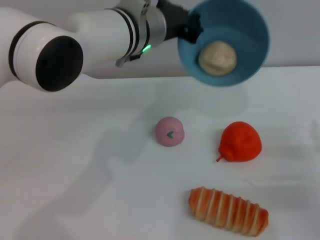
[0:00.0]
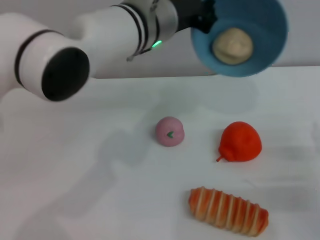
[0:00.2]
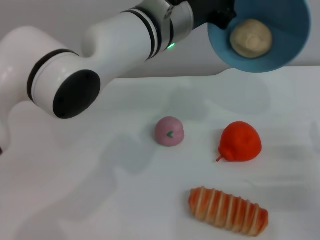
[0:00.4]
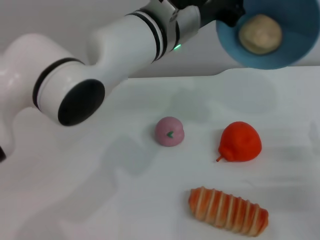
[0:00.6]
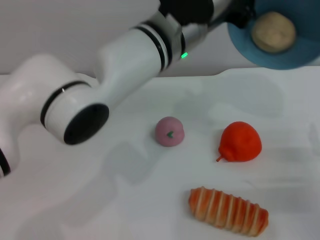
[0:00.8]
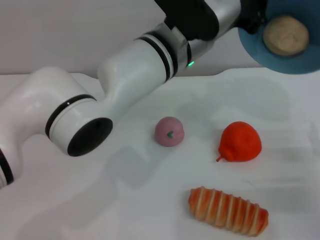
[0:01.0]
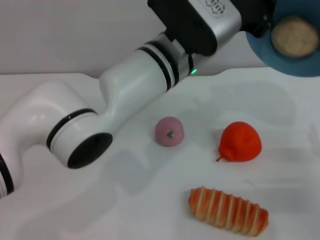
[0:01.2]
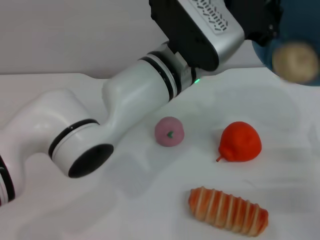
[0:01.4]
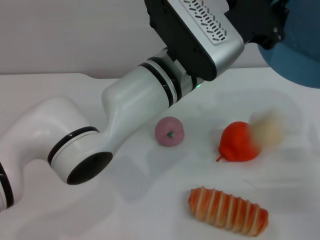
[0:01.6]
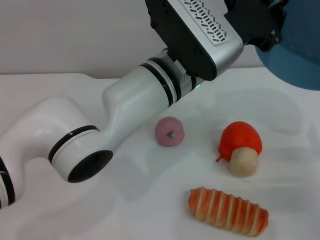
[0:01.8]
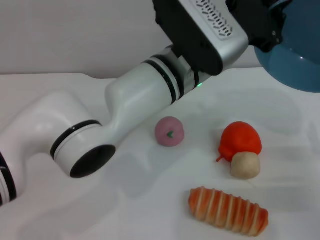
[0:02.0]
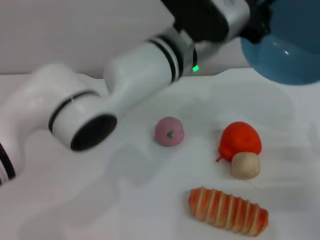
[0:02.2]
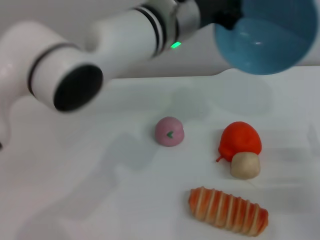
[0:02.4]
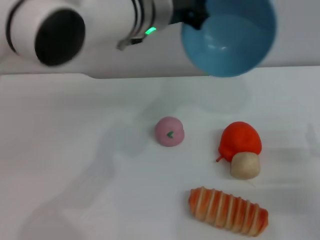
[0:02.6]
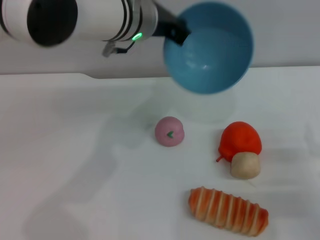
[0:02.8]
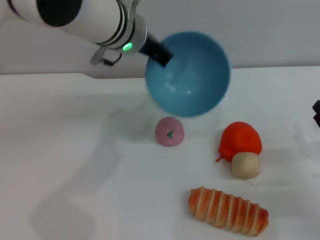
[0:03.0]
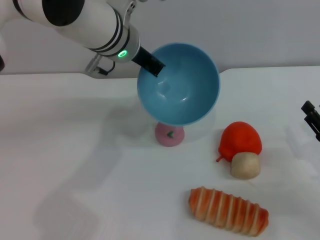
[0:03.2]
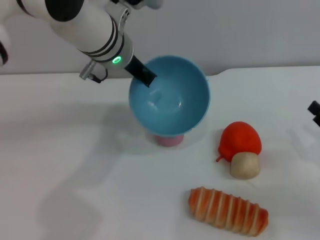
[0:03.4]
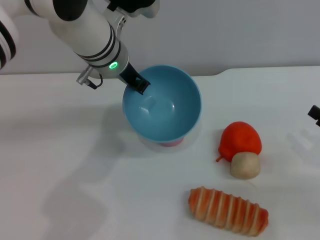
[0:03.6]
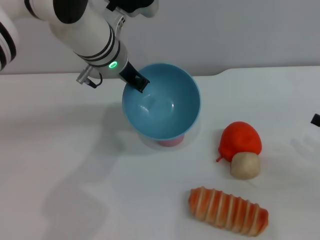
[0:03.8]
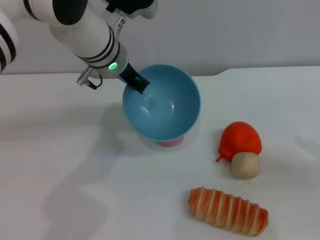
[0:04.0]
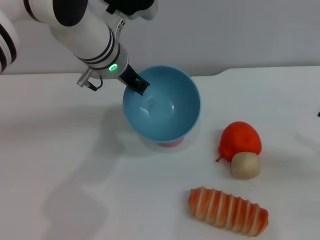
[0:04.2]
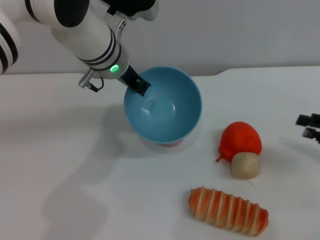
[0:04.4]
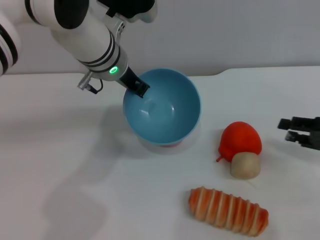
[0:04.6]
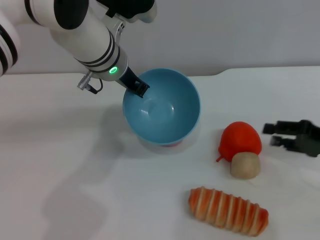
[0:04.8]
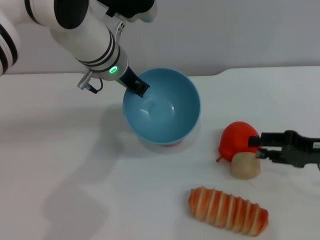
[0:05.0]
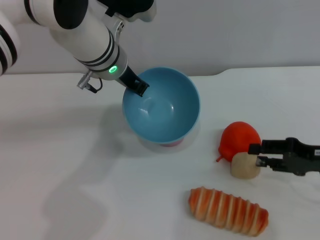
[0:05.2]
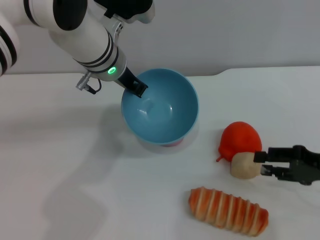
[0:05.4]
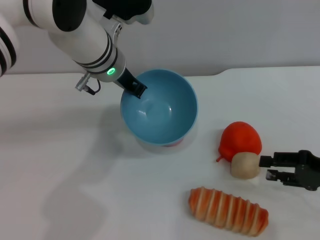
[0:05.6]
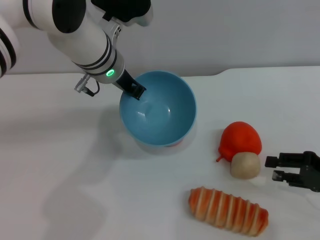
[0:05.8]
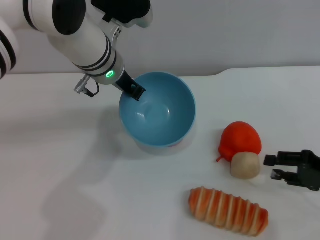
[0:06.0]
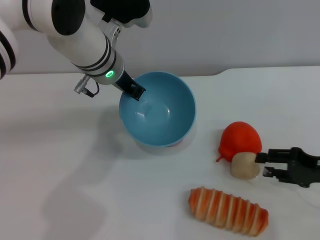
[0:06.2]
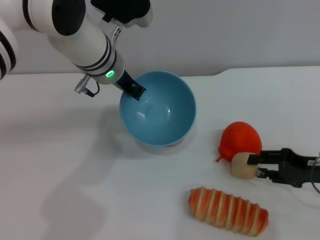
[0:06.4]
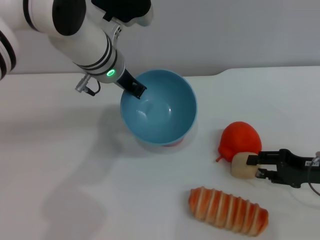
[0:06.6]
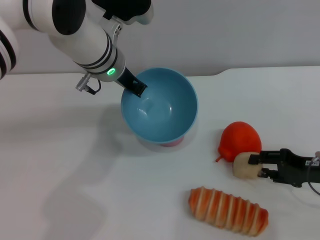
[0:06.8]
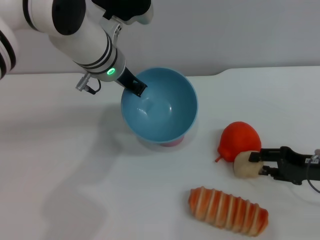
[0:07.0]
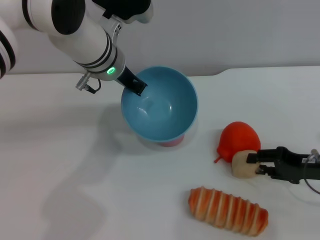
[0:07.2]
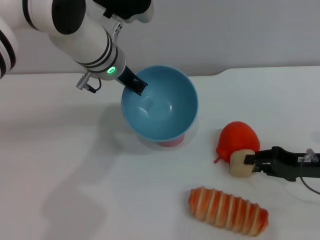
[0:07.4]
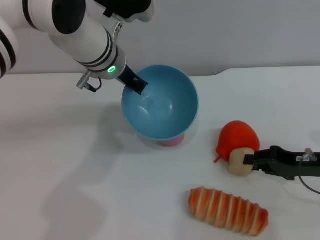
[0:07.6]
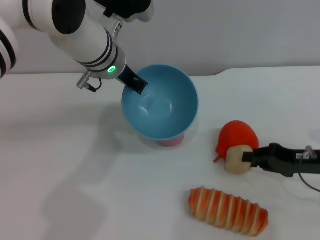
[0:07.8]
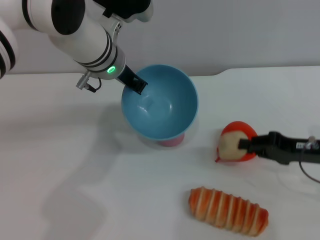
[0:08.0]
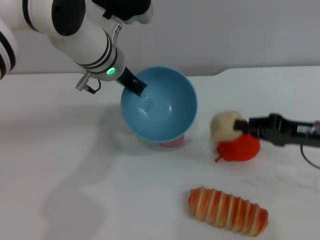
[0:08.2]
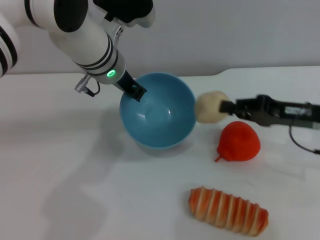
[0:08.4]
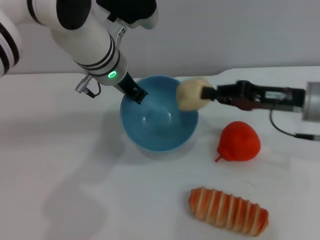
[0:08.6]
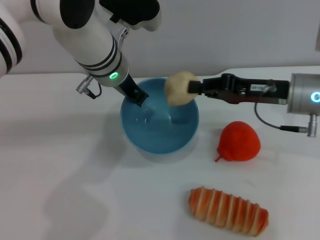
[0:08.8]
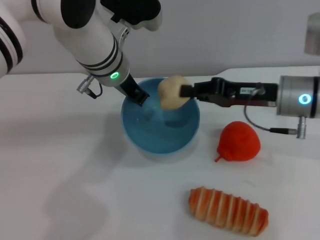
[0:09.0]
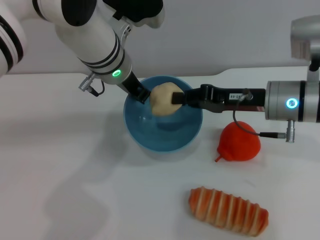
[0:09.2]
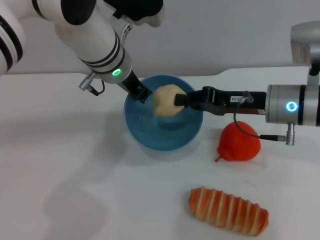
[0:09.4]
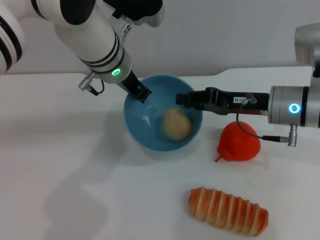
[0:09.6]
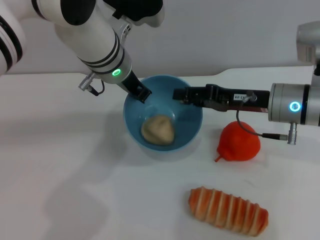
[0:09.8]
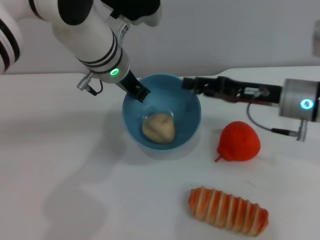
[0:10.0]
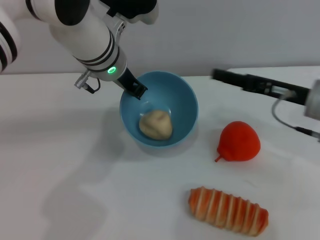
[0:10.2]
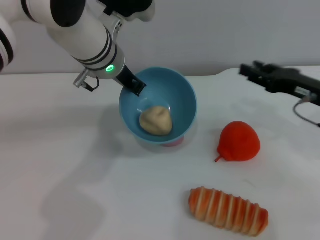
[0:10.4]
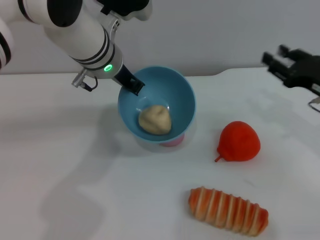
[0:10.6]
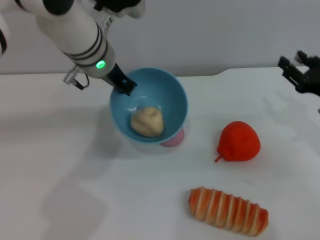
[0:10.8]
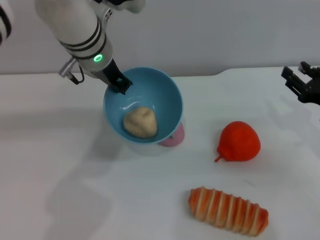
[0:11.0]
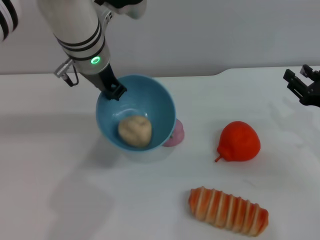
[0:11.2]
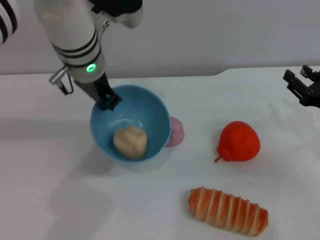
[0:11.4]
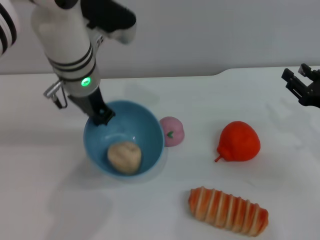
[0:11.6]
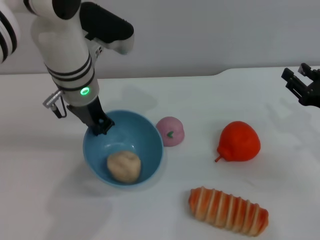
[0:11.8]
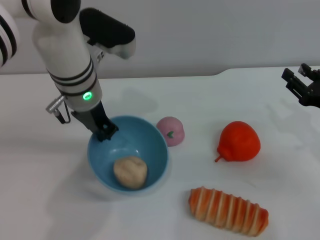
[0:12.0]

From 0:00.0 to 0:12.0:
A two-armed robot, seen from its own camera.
Task of the whole recording: put the egg yolk pastry into the blue bowl and pour it out repeatedly.
Step, from 0:01.8 to 0:08.0: Pick up the egg yolk pastry with the right gripper.
Step, from 0:08.4 to 0:10.6: Place the egg yolk pastry into the bowl.
From 0:00.0 to 0:01.6: The left gripper is displaced backward and to the right by approximately 10 cm.
From 0:01.6 to 0:03.0: The left gripper goes about 10 cm forward and to the left.
From 0:03.0 to 0:04.4: The right gripper heads upward, covering about 10 cm.
From 0:06.0 to 0:07.6: The right gripper moves approximately 5 cm.
From 0:07.6 to 0:09.0: The right gripper is displaced to the left, upward and forward by some 15 cm.
From 0:09.0 to 0:10.4: The right gripper heads to the right, covering some 10 cm, and opens its fingers.
From 0:10.4 to 0:12.0: The right gripper moves roughly 5 cm.

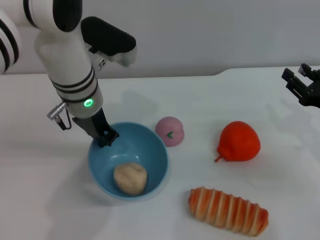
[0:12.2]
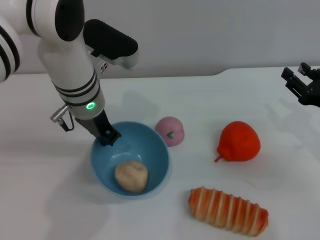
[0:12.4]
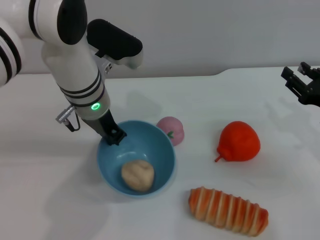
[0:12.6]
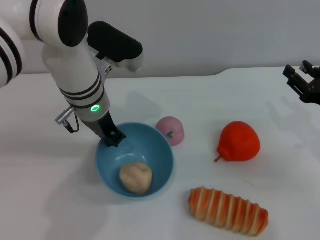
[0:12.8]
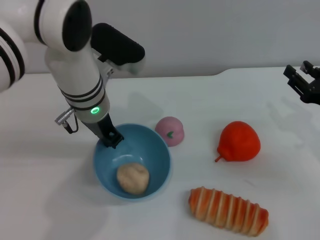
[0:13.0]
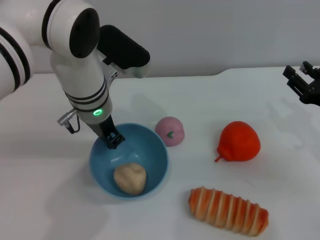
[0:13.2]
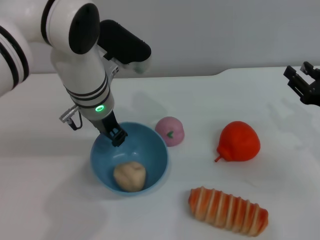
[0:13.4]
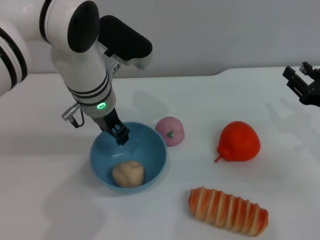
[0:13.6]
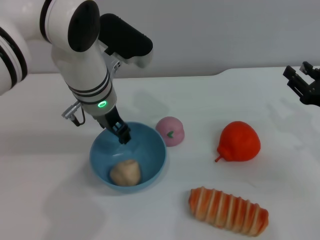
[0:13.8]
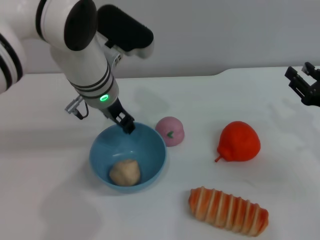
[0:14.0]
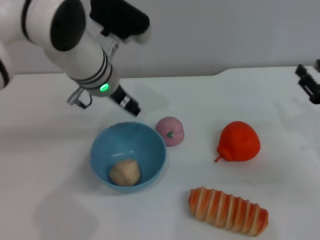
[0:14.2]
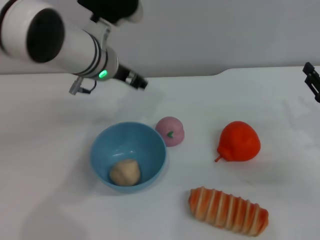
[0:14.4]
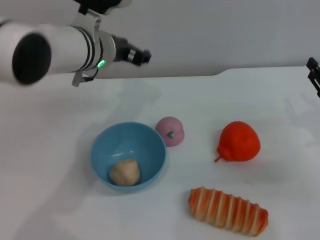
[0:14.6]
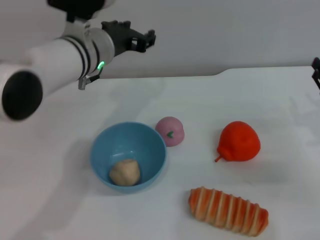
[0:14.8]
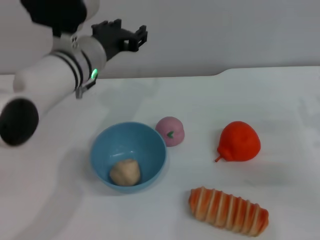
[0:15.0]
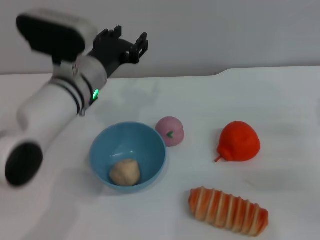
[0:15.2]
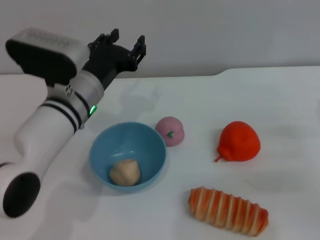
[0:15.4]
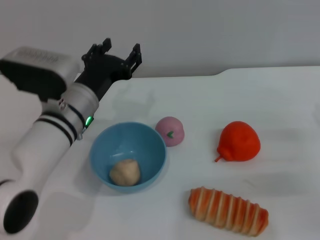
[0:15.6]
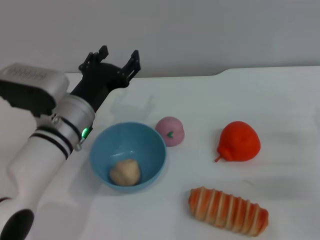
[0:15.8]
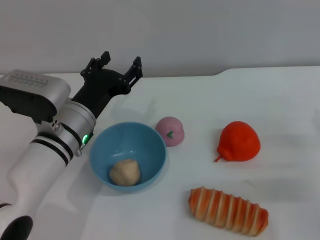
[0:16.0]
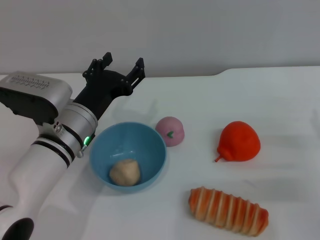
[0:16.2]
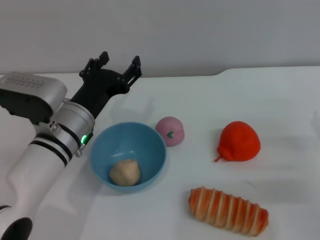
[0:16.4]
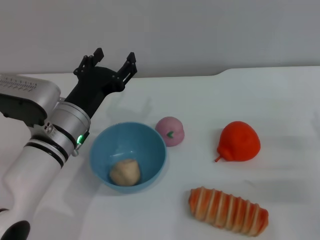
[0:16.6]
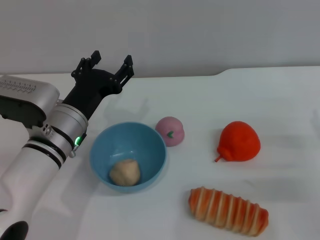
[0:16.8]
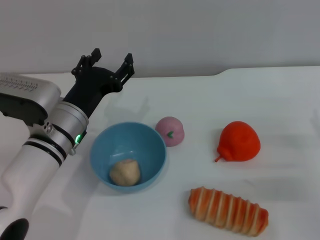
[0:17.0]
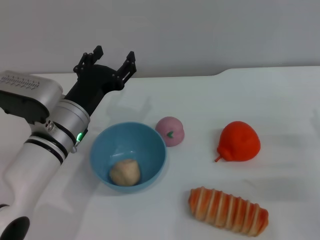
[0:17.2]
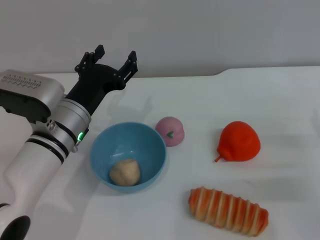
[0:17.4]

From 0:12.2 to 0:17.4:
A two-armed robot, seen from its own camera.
Task of the whole recording: put the egg yolk pastry into the blue bowl and pour it out repeatedly.
Step, from 0:12.2 to 0:14.2: Place the bowl on the table.
From 0:12.2 to 0:14.0: The left gripper opens its fingers.
From 0:14.0 to 0:15.6: The left gripper shifts roughly 10 cm downward and backward.
From 0:15.6 to 0:17.4: There are only small adjustments of the grippers.

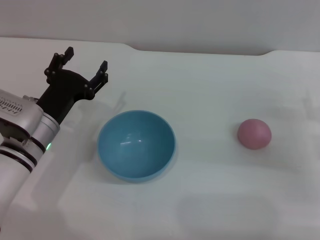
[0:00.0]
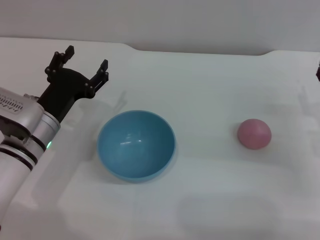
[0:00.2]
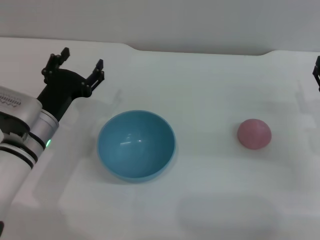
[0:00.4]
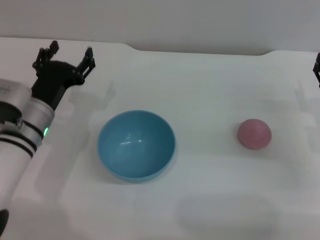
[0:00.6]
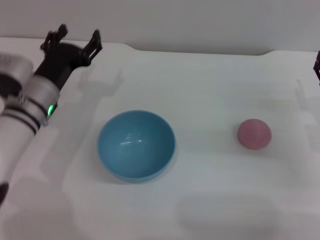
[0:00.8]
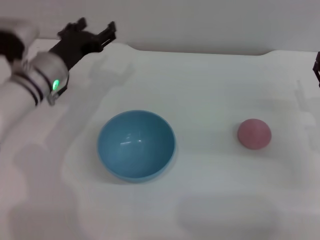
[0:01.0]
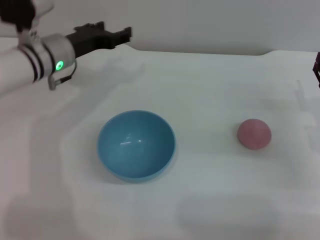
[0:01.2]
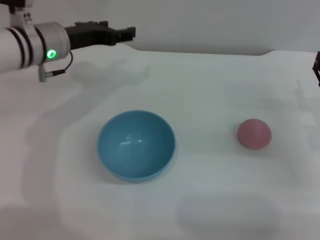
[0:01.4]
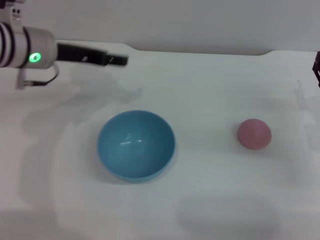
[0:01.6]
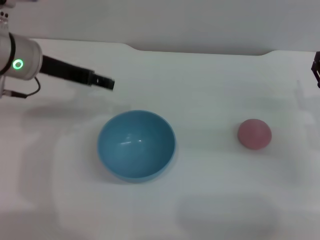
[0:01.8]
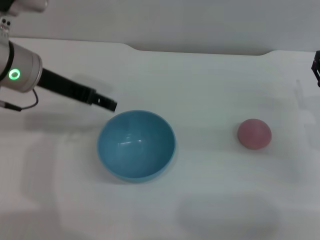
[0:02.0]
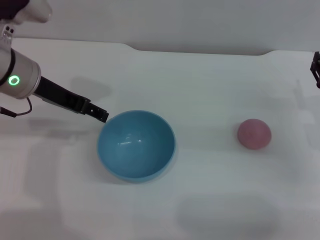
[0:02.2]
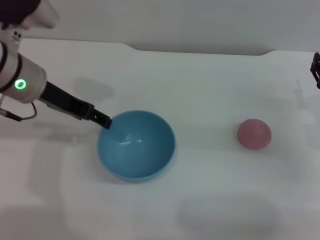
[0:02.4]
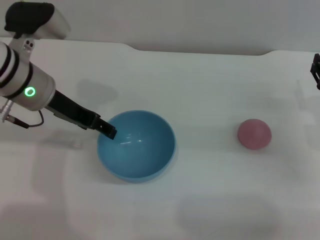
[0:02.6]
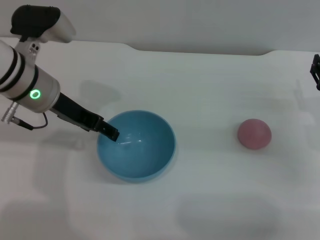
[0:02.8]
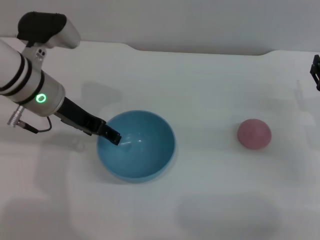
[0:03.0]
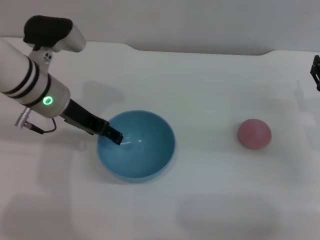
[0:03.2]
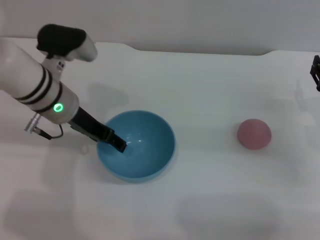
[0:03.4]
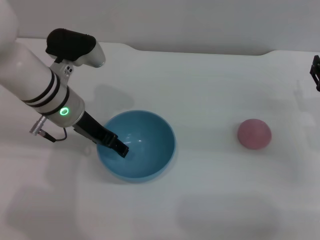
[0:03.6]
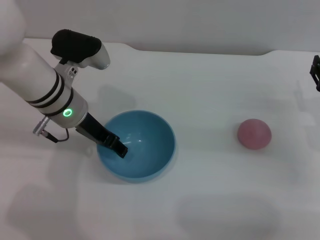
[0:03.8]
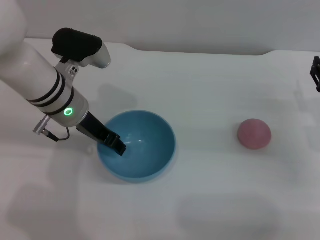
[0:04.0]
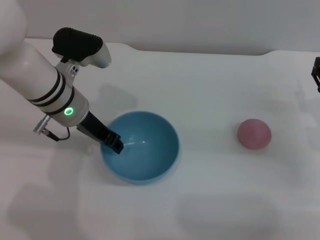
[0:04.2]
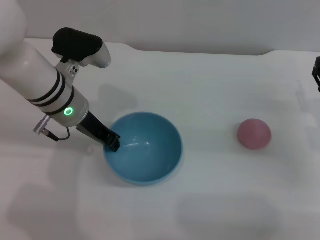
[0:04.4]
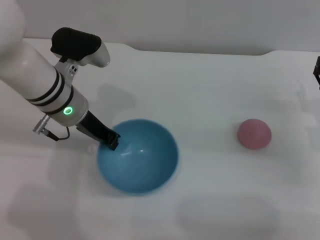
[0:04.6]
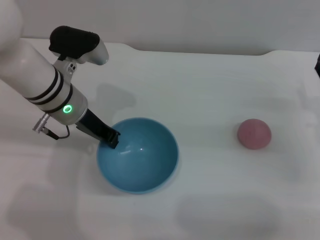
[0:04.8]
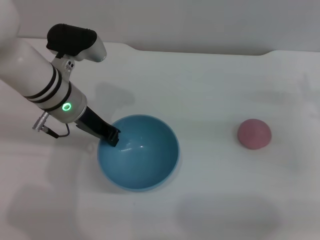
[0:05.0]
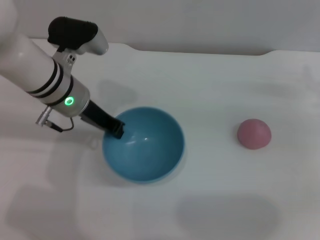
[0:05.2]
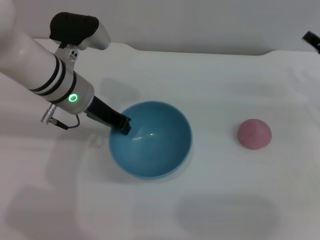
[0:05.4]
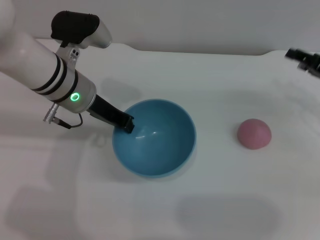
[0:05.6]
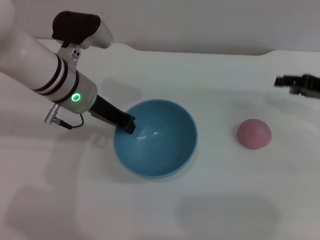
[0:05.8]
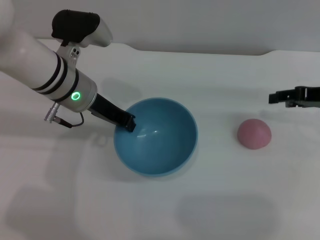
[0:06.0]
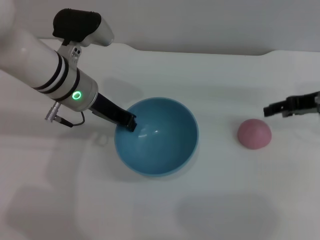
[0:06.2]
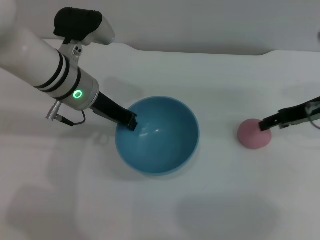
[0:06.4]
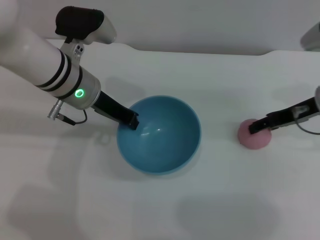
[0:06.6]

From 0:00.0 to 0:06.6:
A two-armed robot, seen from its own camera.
Task of the whole recording: put the peach into the blue bowl and pour it out repeatedly.
Step, from 0:00.0 to 0:05.4: Pick up the bowl with the left gripper.
From 0:00.0 to 0:01.6: The left gripper goes roughly 15 cm upward and forward.
From 0:03.2 to 0:05.0: The left gripper closes its fingers.
From 0:05.0 to 0:06.6: The right gripper moves to the left and upward, about 10 cm.
